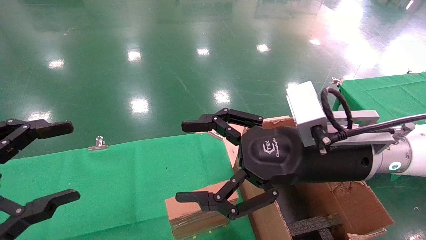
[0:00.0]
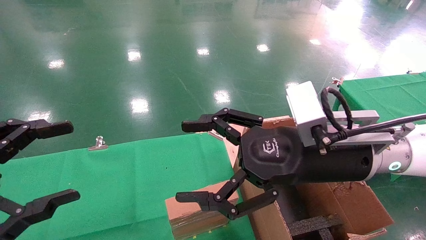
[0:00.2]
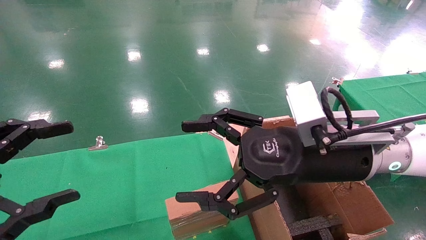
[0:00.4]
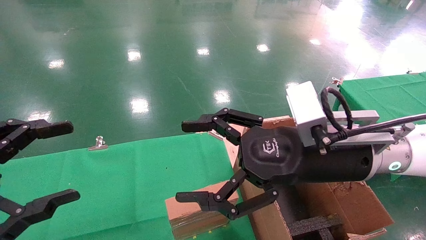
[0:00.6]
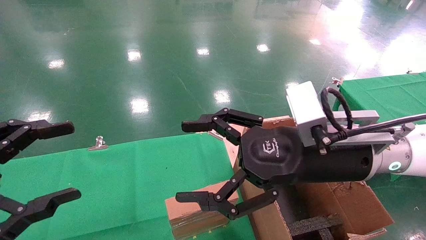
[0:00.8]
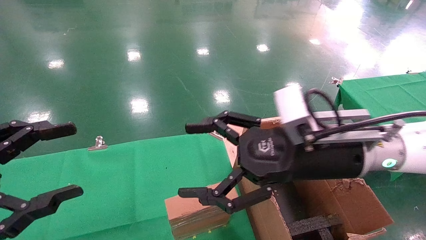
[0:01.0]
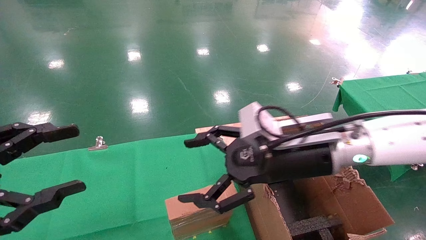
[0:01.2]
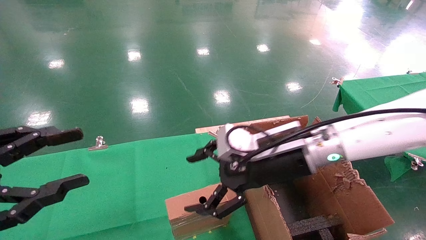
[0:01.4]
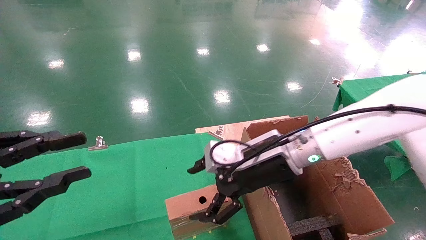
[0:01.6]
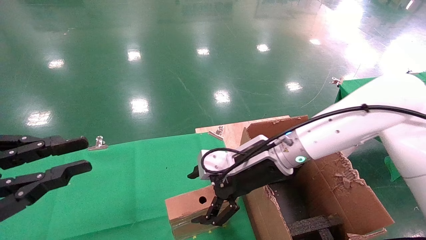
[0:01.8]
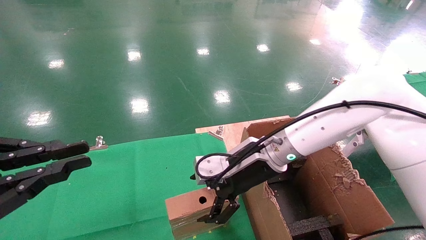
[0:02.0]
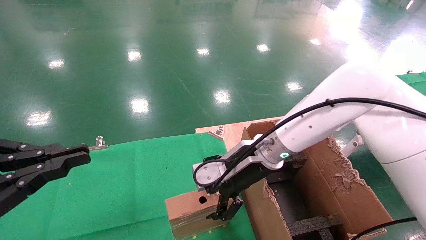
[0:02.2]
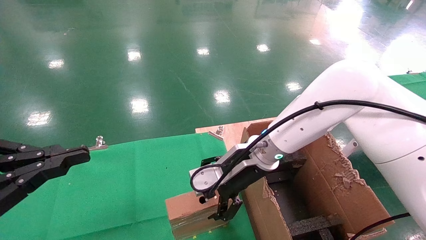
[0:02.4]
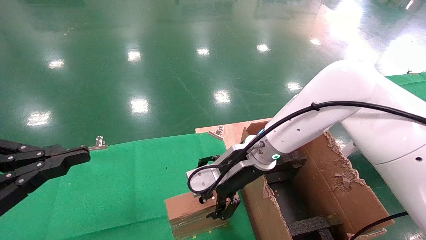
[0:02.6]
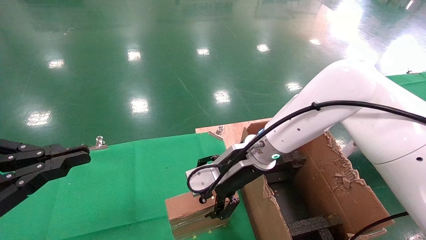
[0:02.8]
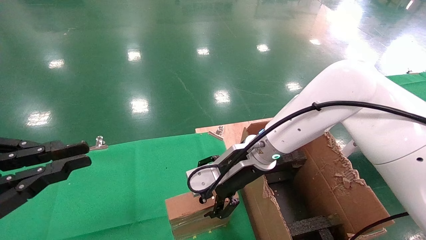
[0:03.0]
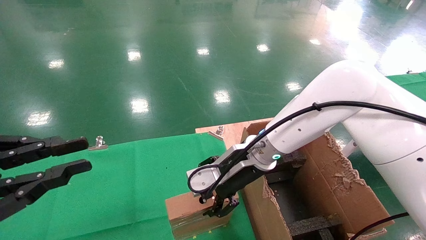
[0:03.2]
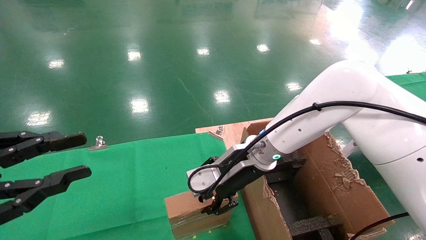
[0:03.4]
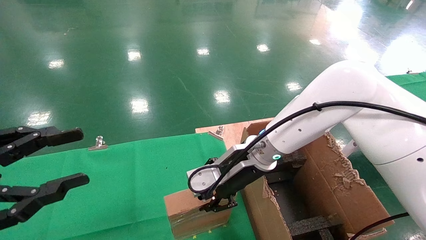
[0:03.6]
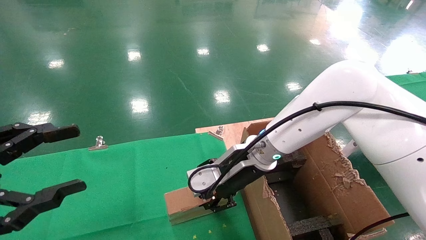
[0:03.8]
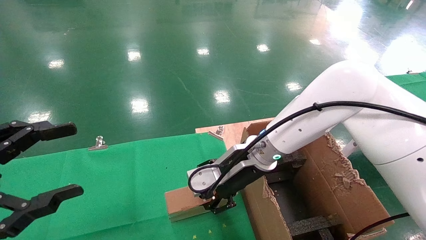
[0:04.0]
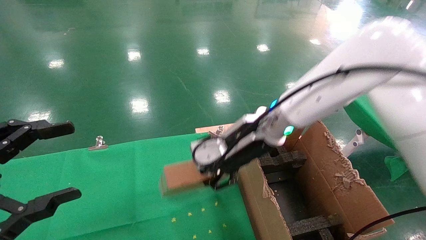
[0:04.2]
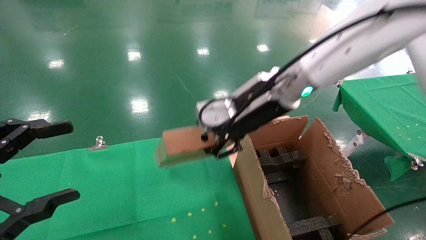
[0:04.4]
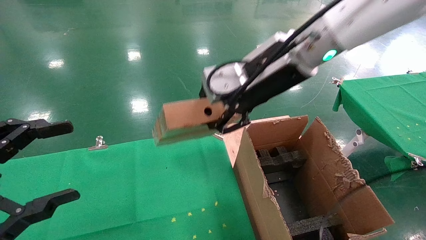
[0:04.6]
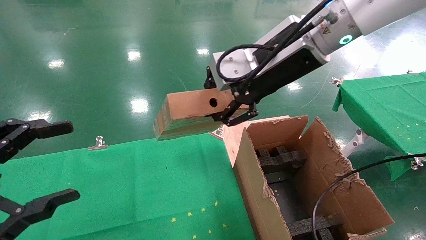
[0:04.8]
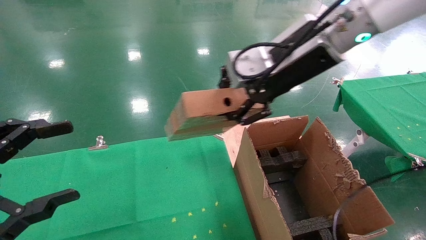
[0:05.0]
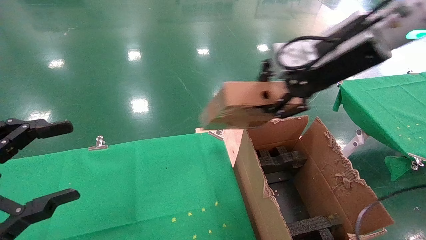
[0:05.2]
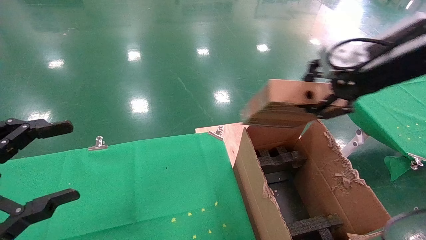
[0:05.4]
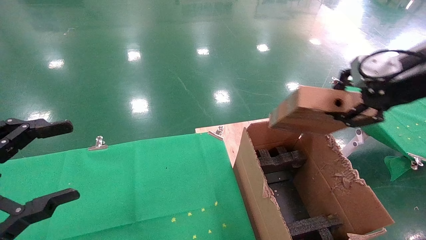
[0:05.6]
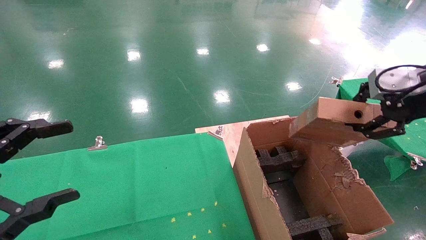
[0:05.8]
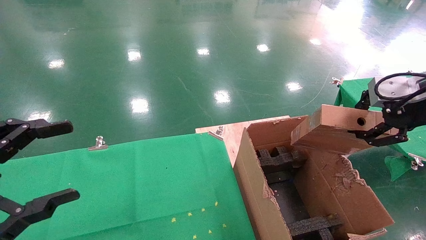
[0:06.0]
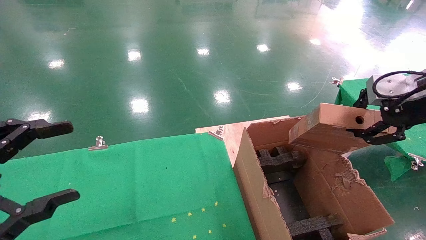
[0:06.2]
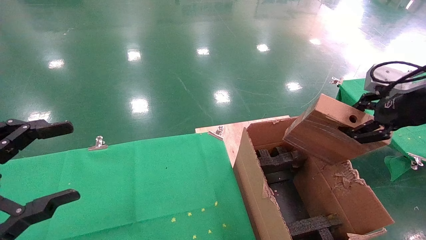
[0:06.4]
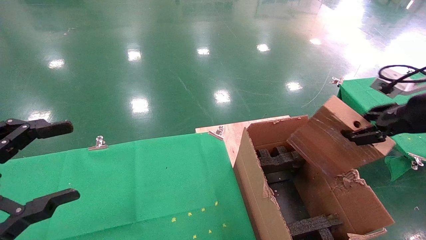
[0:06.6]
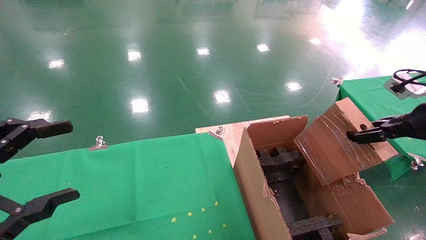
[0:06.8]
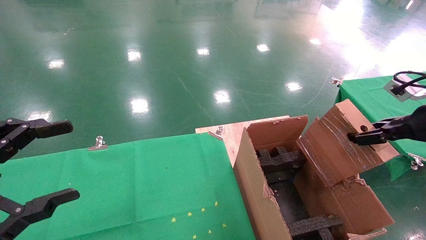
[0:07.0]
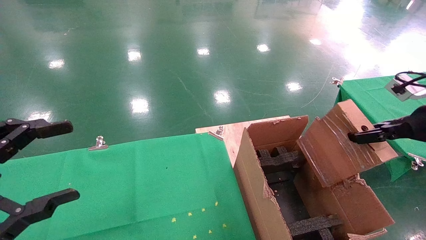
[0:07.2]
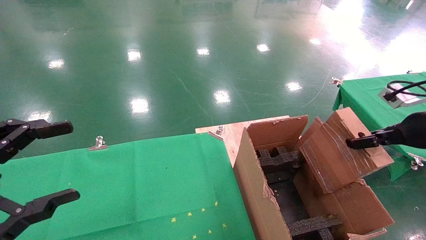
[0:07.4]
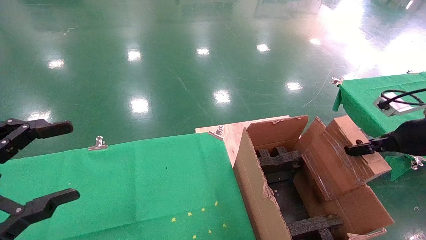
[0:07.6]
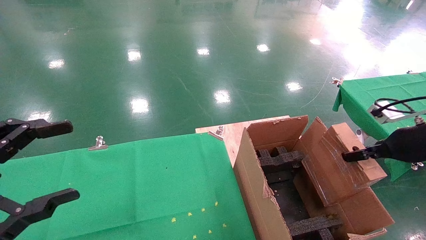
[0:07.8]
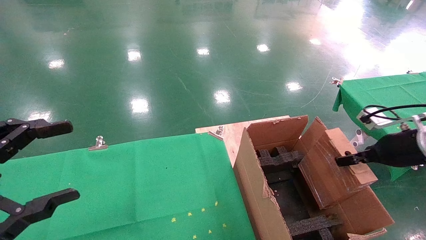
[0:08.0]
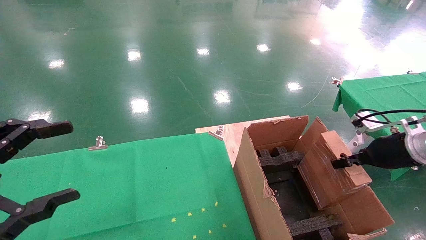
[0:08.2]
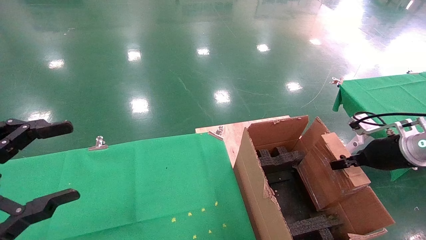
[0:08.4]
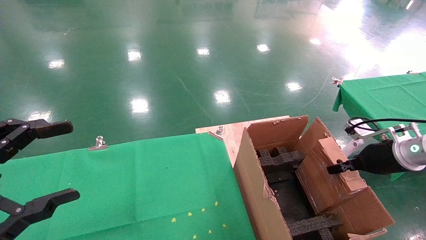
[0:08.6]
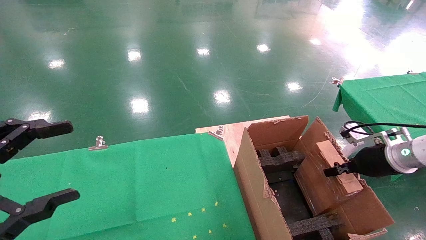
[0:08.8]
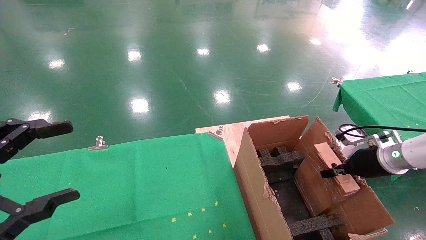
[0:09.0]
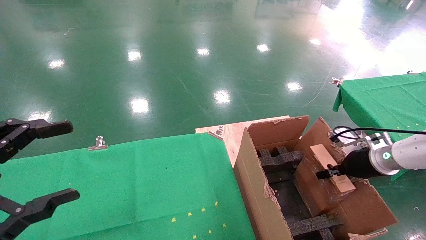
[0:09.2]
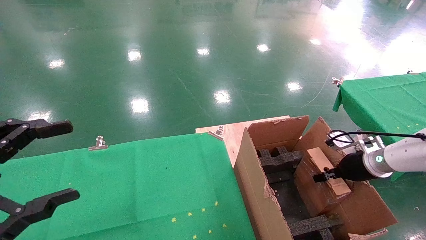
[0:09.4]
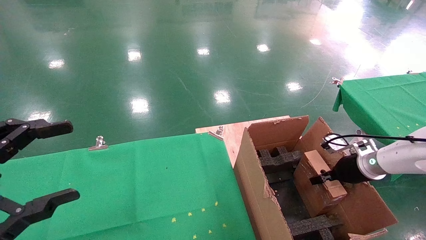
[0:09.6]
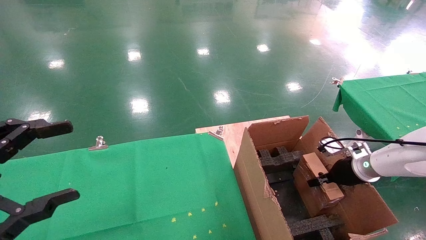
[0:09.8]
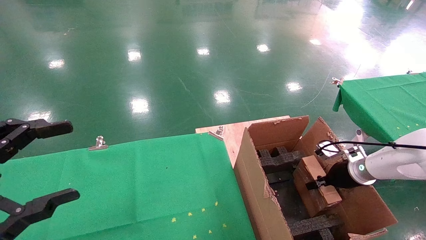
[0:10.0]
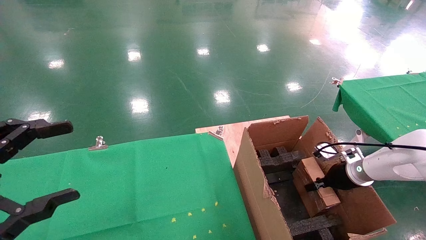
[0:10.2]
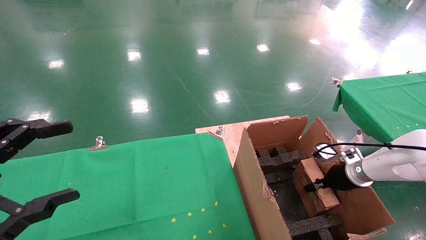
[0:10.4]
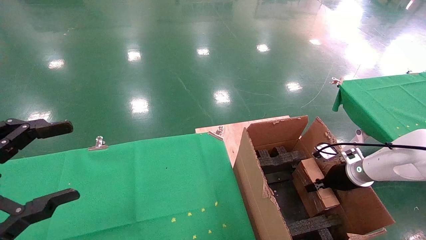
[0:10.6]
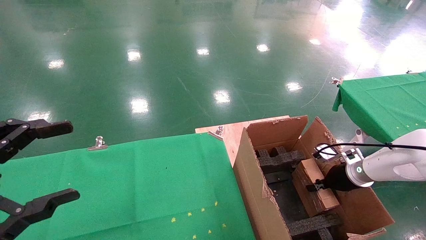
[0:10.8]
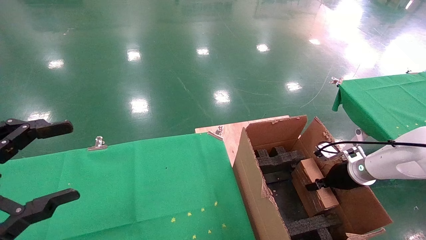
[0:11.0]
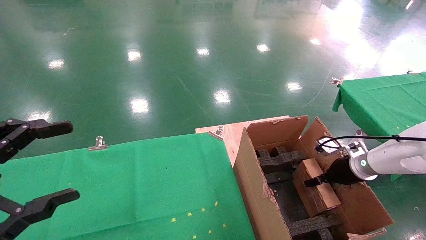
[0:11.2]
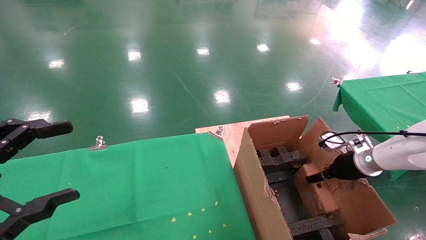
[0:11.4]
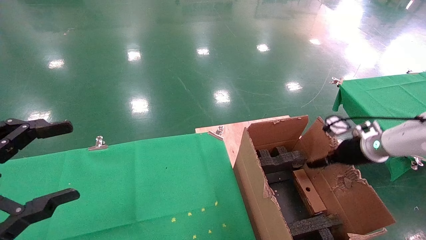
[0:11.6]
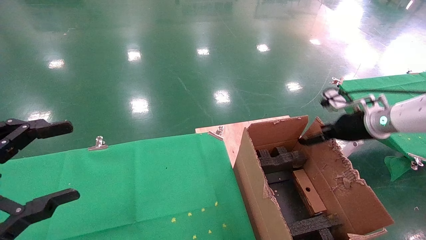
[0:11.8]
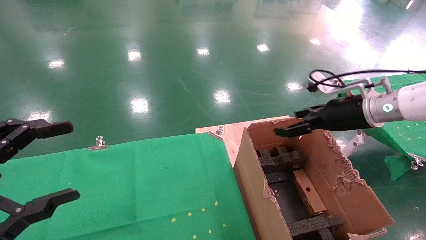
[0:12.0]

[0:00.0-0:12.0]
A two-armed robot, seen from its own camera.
Task of the whole recording: using a robotic arm to pick up a cardboard box and palace it the carton.
Step, 0:01.4 to 0:03.6: Pick up the mouse and the power cord paper box.
Step, 0:03.8 to 0:11.2: Place the mouse and the power cord paper box into the container.
0:00.0 to 0:01.6: The left gripper closes its fingers, while the right gripper shifts about 10 cm forward.
0:01.6 to 0:03.0: The left gripper closes its fingers; the right gripper moves roughly 5 cm.
0:03.0 to 0:04.4: The right gripper is displaced upward by some 15 cm, and closes up; the left gripper opens up.
0:04.4 to 0:06.0: The right gripper is displaced to the right by approximately 25 cm.
0:06.0 to 0:07.6: The right gripper moves downward and to the right, roughly 15 cm.
0:07.6 to 0:09.0: The right gripper heads downward and forward, covering roughly 15 cm.
0:09.0 to 0:10.4: The right gripper shifts about 10 cm downward.
0:10.4 to 0:12.0: The right gripper goes about 20 cm upward and to the left, and opens up.

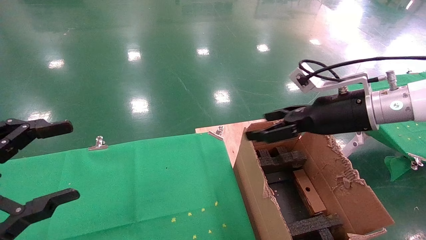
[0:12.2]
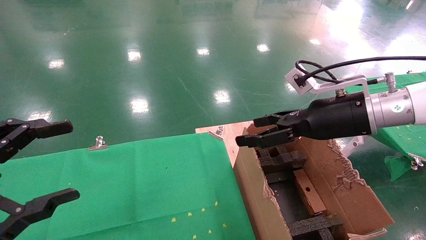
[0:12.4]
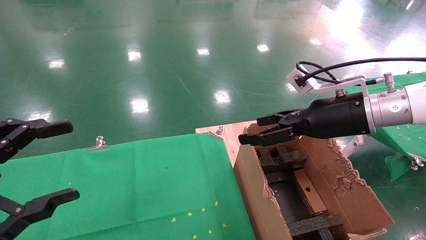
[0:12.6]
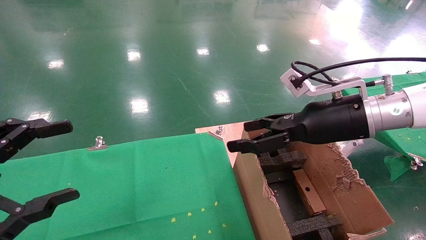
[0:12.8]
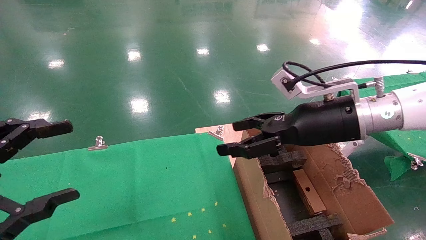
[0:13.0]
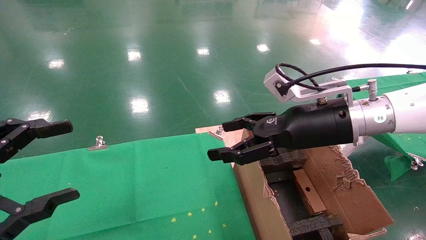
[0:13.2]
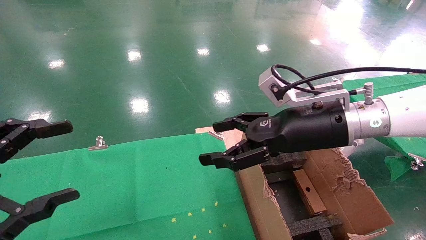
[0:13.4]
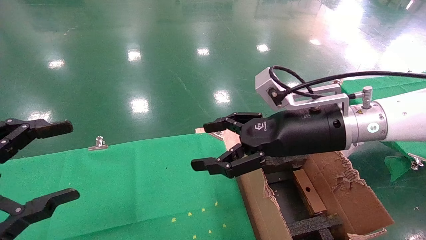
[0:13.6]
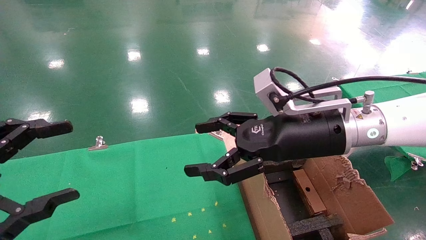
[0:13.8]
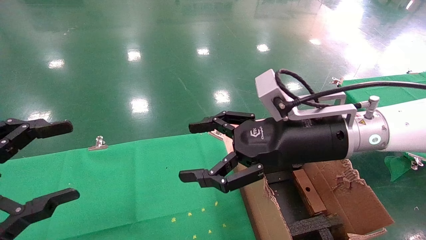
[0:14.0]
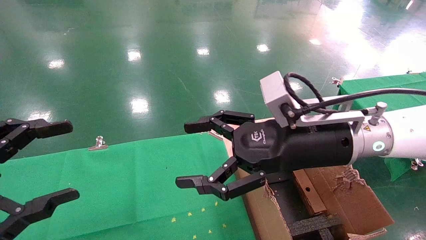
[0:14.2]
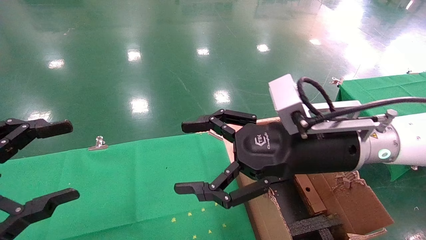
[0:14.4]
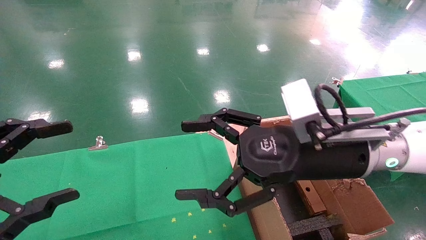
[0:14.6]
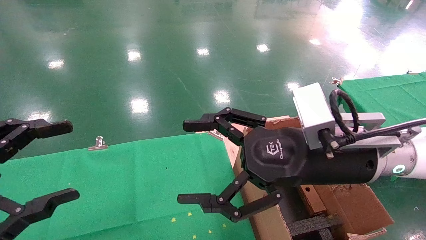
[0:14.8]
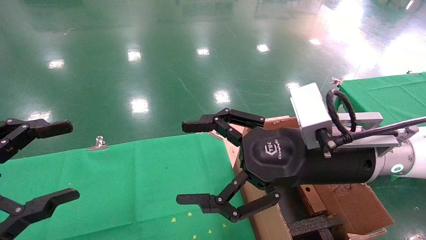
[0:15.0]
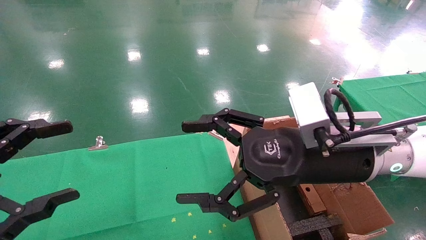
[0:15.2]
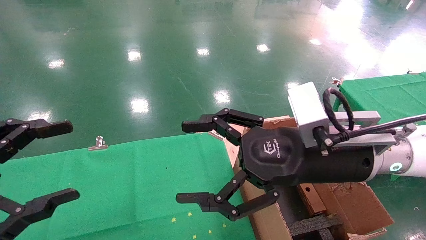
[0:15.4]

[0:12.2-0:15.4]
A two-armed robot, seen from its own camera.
Task of the whole recording: using a robotic arm to pick up a cardboard box and palace it the carton.
0:12.2 to 0:13.8: The right gripper shifts some 10 cm to the left.

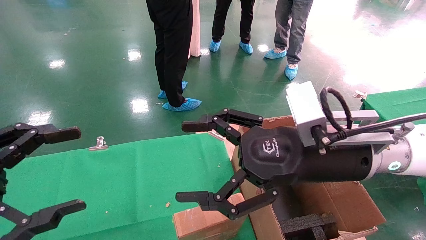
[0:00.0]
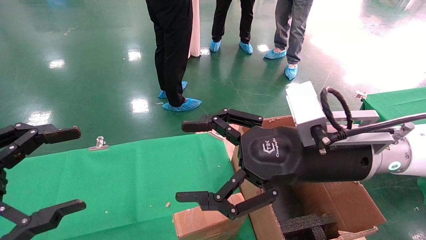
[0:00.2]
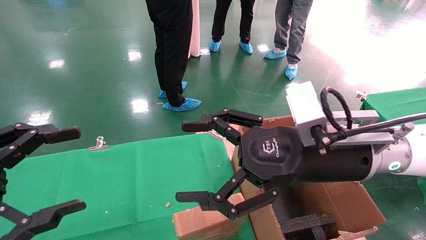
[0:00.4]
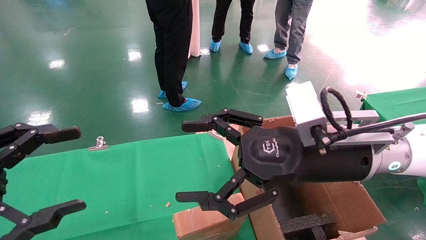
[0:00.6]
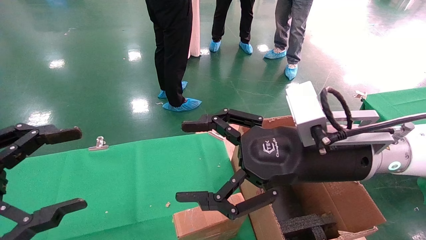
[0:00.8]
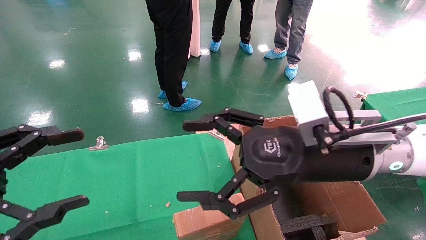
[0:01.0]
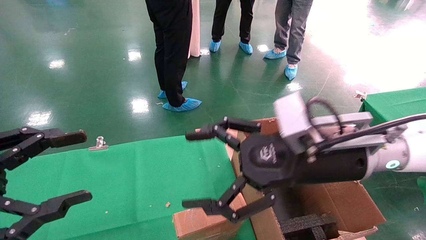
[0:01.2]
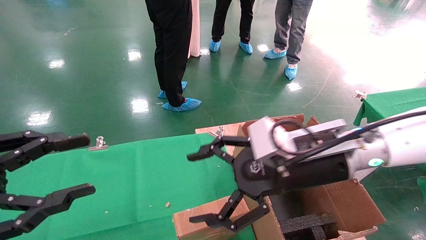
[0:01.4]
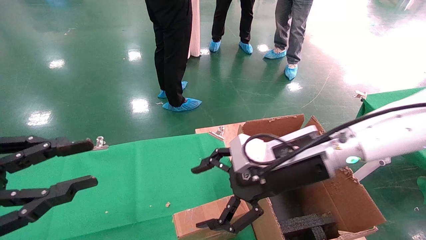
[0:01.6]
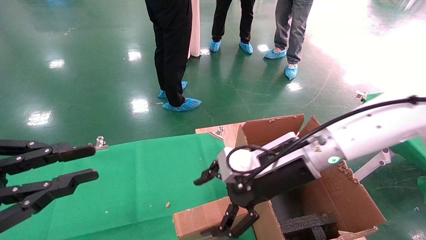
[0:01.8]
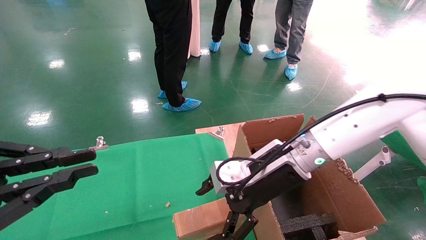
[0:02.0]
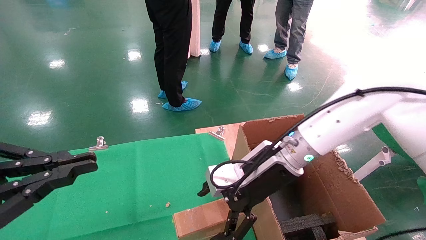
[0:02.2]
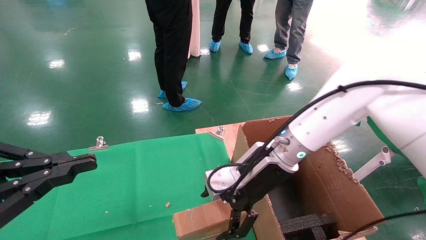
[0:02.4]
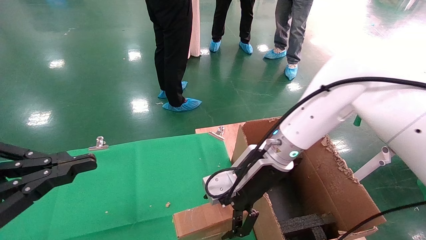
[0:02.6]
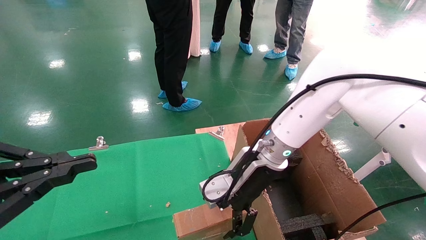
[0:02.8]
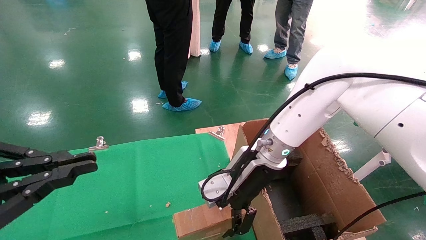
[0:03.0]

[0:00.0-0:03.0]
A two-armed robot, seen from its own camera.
Task of the whole recording: using a robotic arm to pick up a cardboard box and palace it the carton.
0:00.0 to 0:01.6: The right gripper travels forward by some 5 cm. Meanwhile the left gripper closes up.
0:01.6 to 0:03.0: The left gripper closes; the right gripper travels forward by approximately 5 cm.
